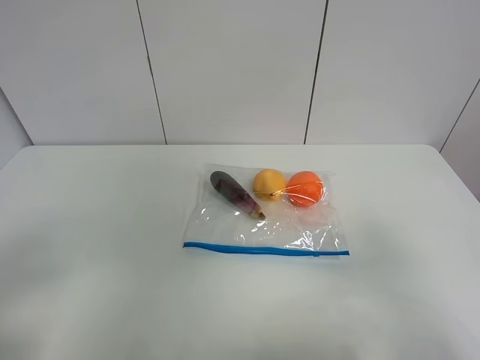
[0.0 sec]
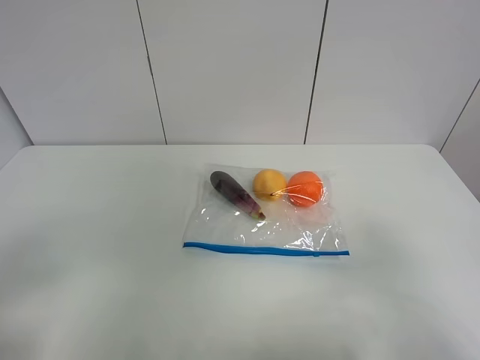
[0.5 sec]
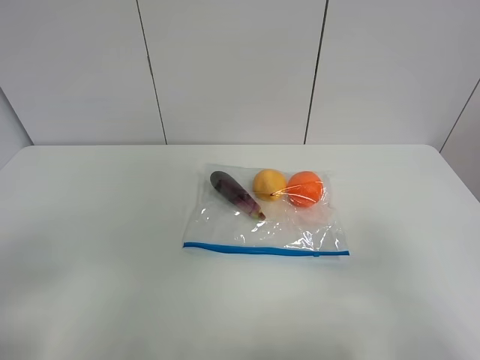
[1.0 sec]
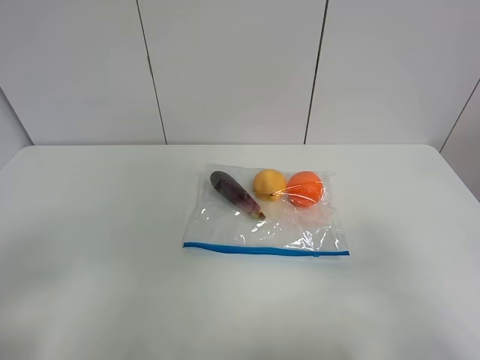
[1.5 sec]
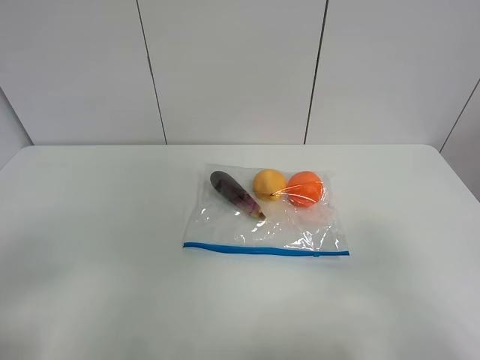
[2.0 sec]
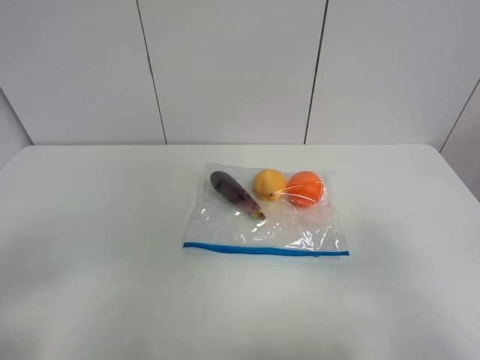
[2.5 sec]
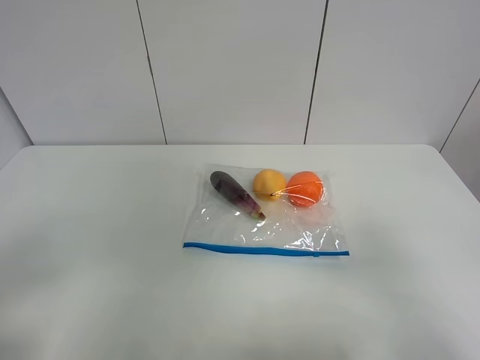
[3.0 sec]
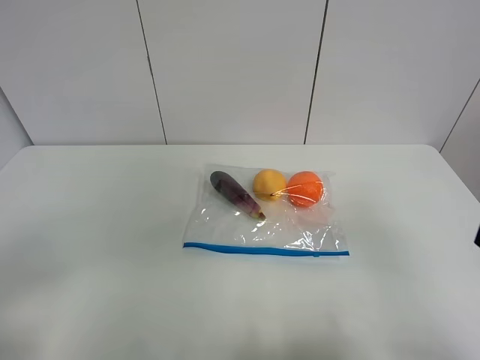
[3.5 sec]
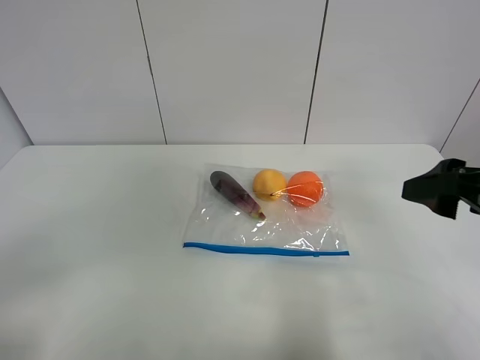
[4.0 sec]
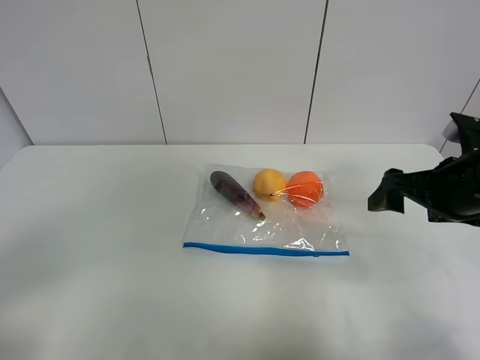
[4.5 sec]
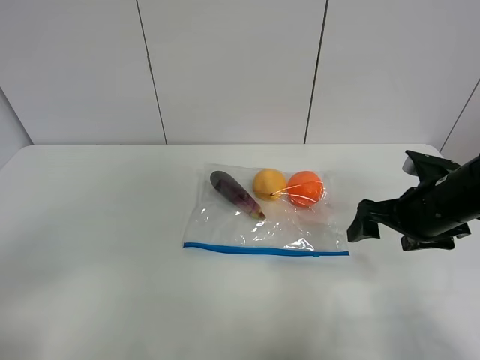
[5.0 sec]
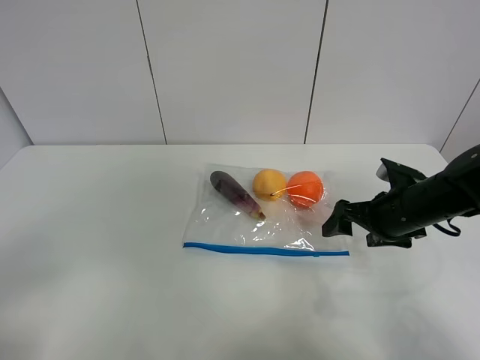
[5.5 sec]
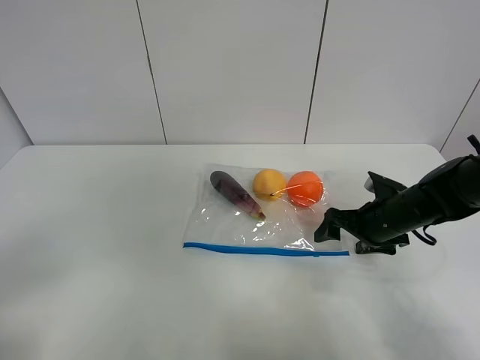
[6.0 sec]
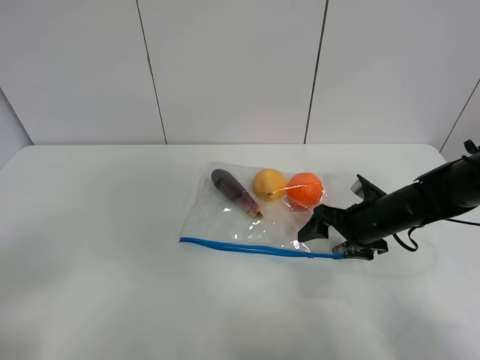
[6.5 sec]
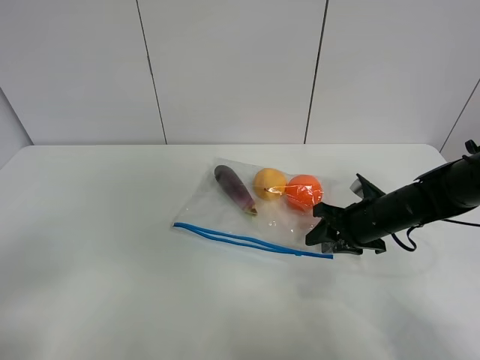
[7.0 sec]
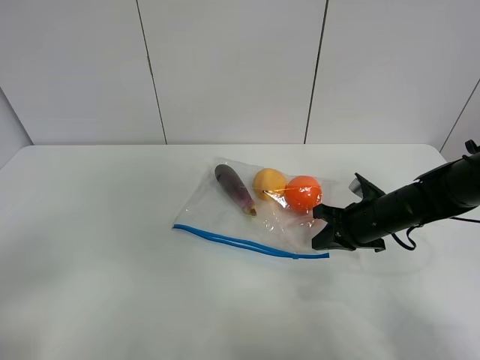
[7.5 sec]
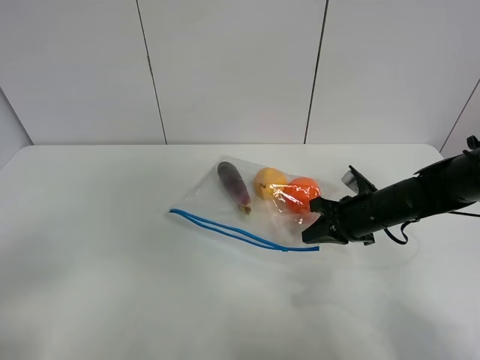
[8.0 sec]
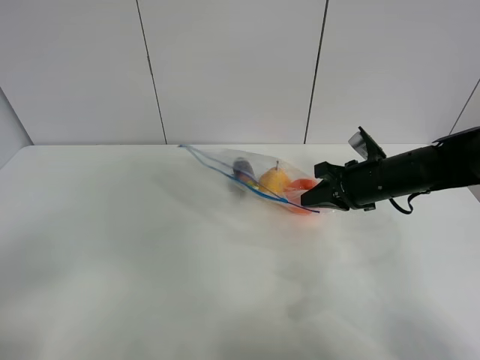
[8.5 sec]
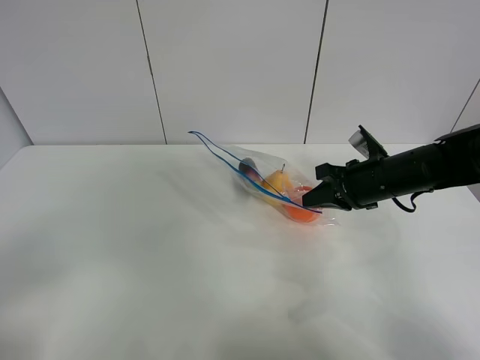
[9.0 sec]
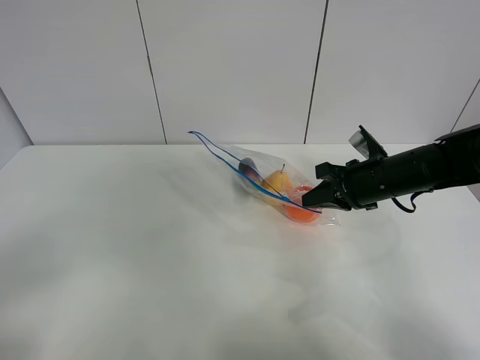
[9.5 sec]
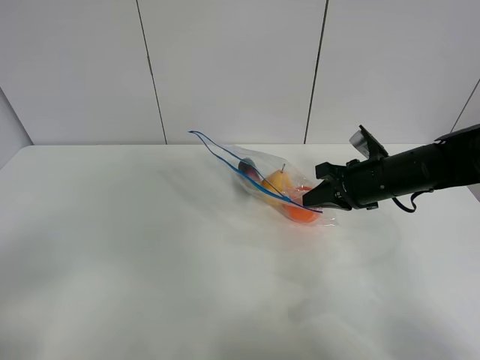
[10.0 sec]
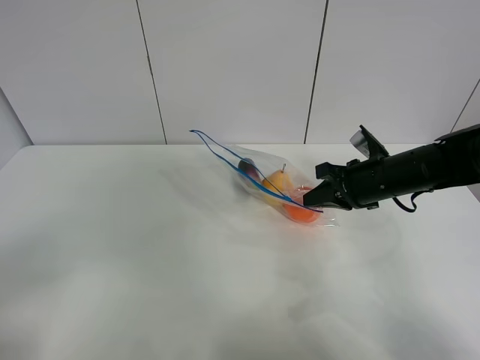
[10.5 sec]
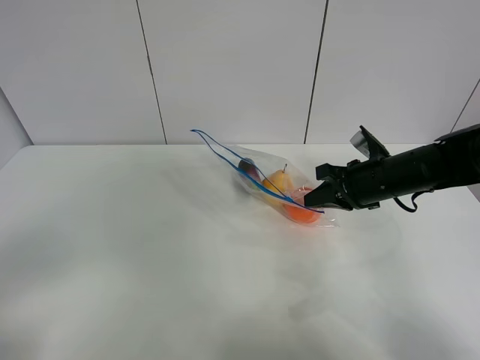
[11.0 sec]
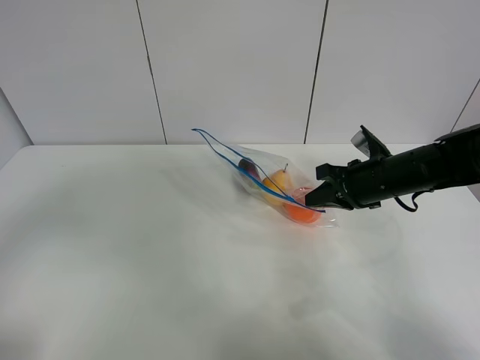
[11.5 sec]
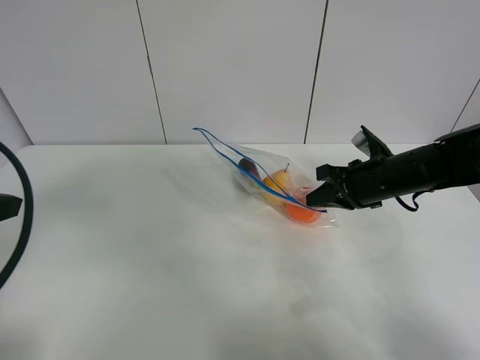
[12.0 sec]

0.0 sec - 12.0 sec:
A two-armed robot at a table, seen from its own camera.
Step, 0.0 sec - 7.0 sec: Grasp the fruit bag with right gripper.
Step, 7.5 sec - 9.0 sec: Lift the fruit bag with your right gripper.
0.0 sec - 2.0 sec: Both grippers stay put.
2.0 sec - 4.0 sec: The right gripper goes approximately 15 cm forward.
4.0 sec - 6.0 sec: The right gripper travels downward and forward by roughly 25 cm.
6.0 sec - 8.0 sec: The right gripper closes.
8.0 sec - 10.0 sec: The right gripper shifts approximately 5 cm upward.
10.0 sec - 12.0 sec: The left gripper is displaced forward by about 15 cm.

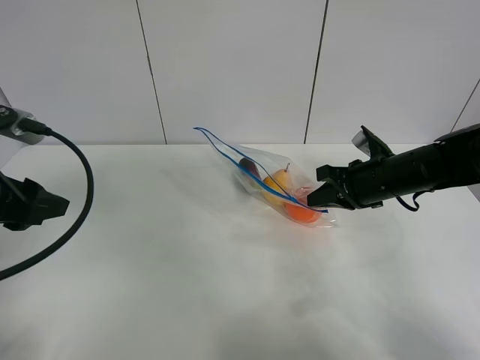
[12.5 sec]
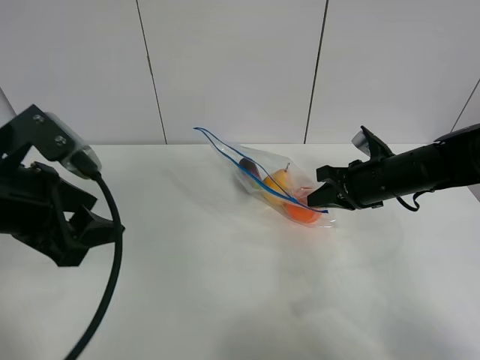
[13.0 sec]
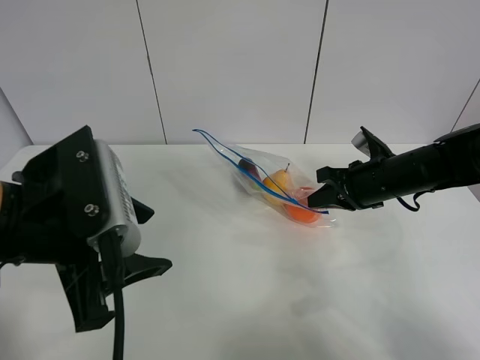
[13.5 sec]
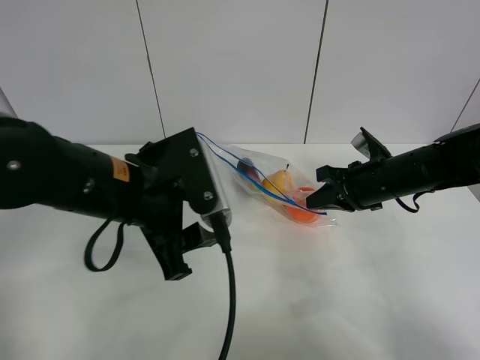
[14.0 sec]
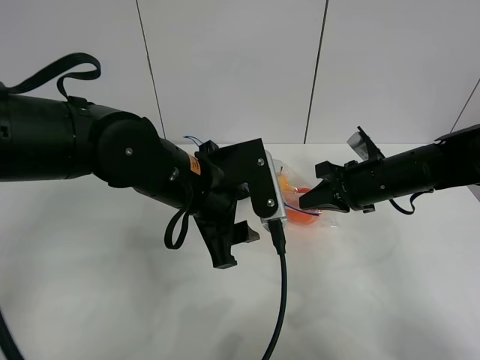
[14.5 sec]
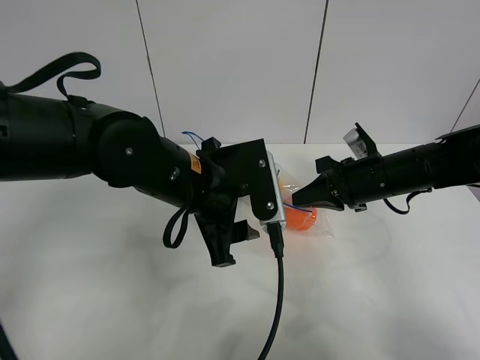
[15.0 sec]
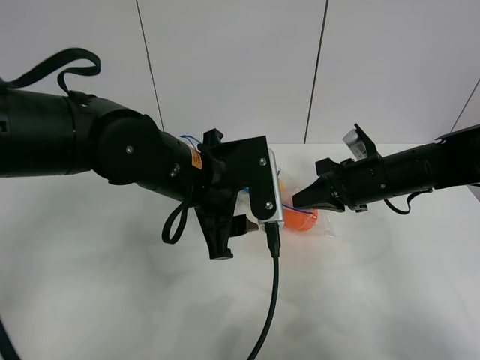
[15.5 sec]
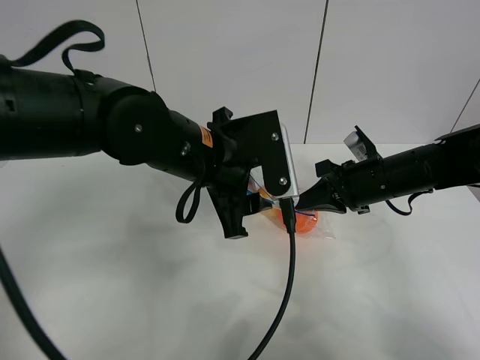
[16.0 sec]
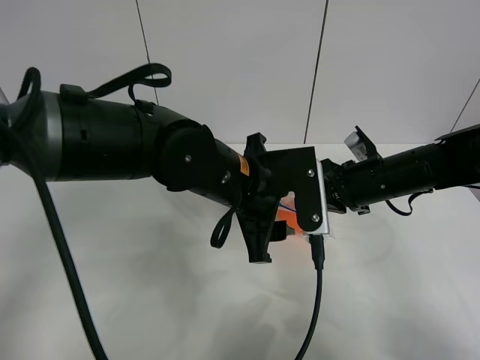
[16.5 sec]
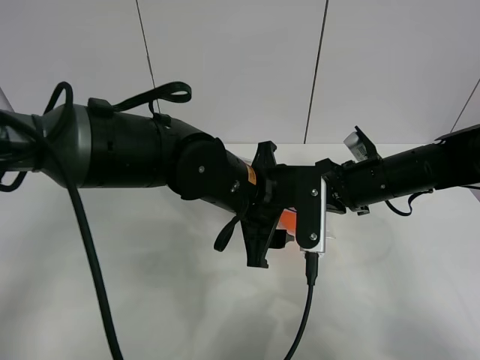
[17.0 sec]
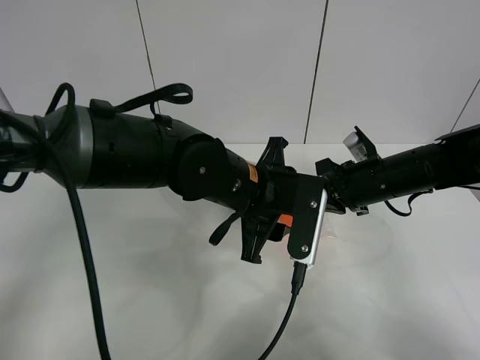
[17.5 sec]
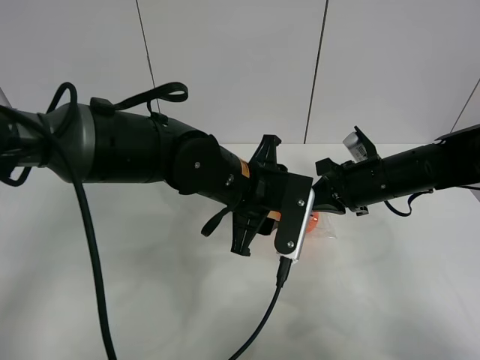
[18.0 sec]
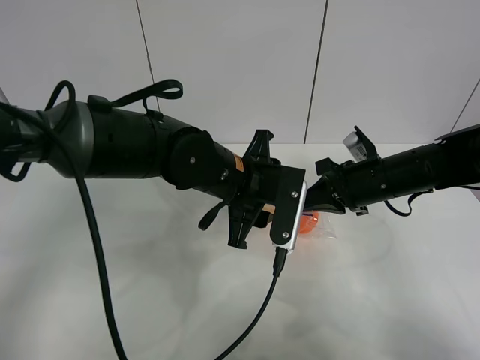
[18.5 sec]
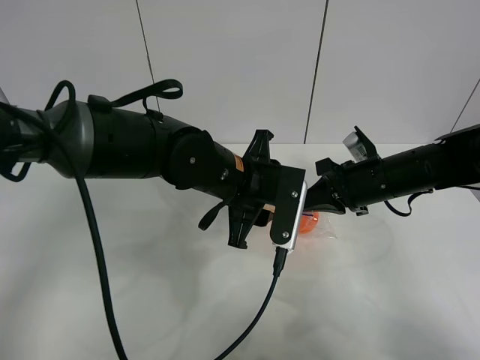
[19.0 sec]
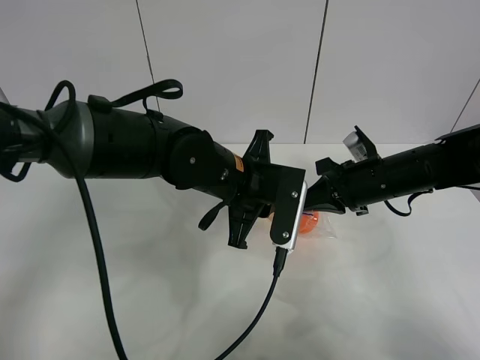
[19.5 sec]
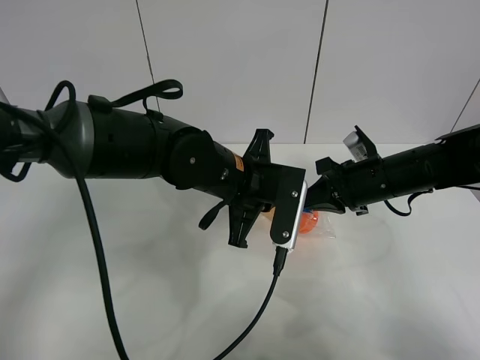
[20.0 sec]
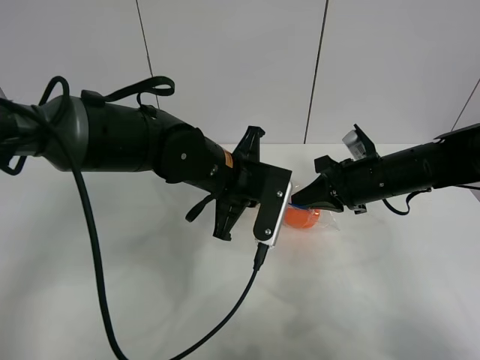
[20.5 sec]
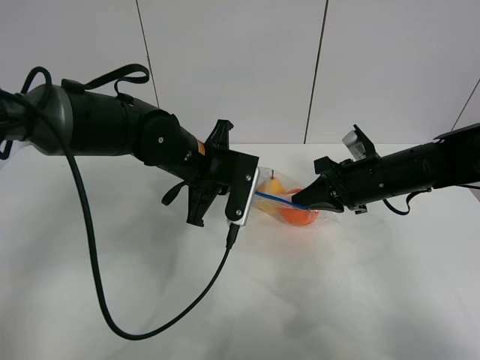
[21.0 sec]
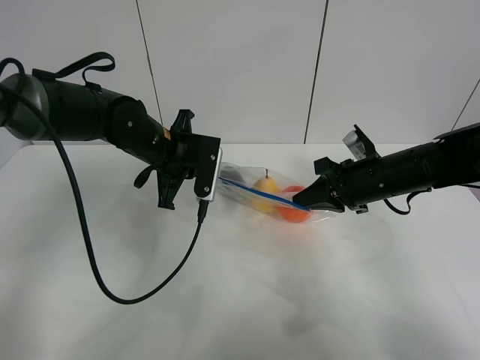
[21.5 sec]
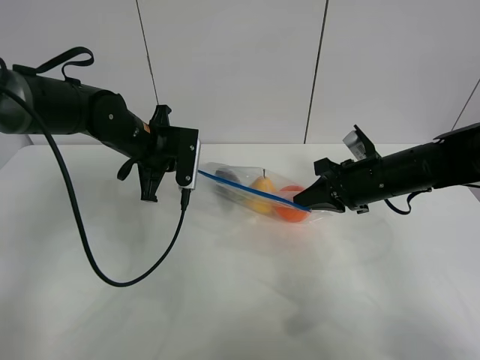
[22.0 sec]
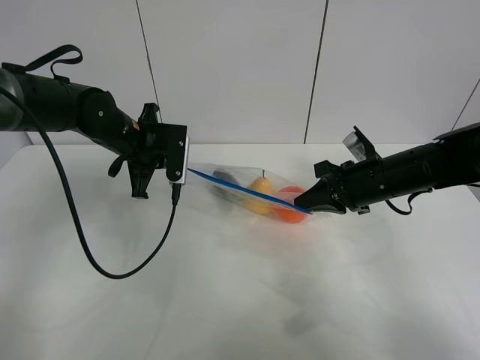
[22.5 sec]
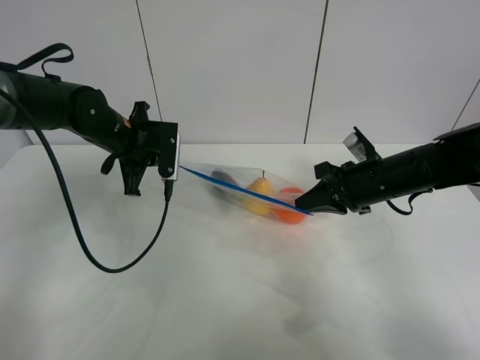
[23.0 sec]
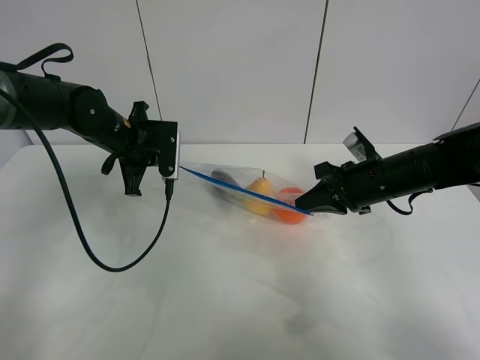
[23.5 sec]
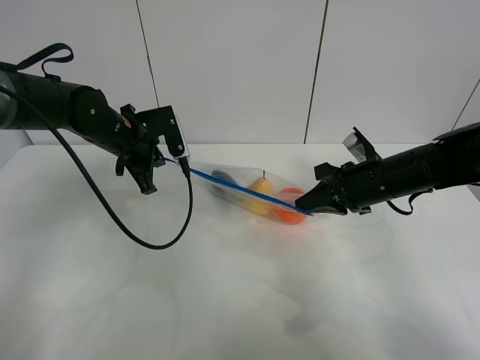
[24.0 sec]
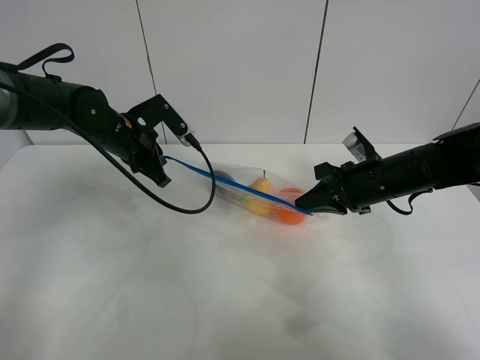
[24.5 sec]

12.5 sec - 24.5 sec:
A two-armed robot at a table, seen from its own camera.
12.5 sec - 14.5 sec: The left gripper travels to the right by about 25 cm.
14.5 sec - 16.5 sec: The left gripper travels to the right by some 5 cm.
18.5 sec - 20.5 sec: The left gripper closes up.
20.5 sec - 22.5 sec: The left gripper shifts approximately 15 cm to the left and forward.

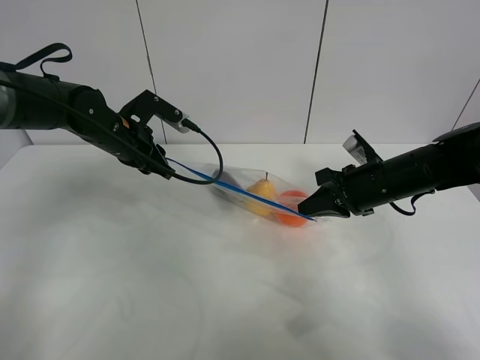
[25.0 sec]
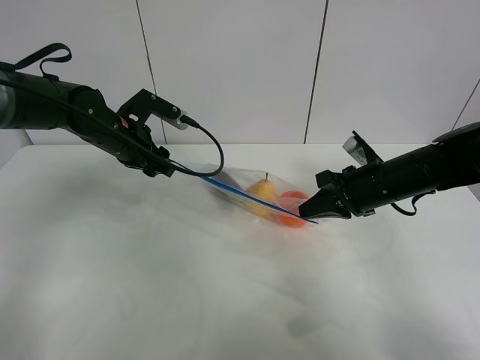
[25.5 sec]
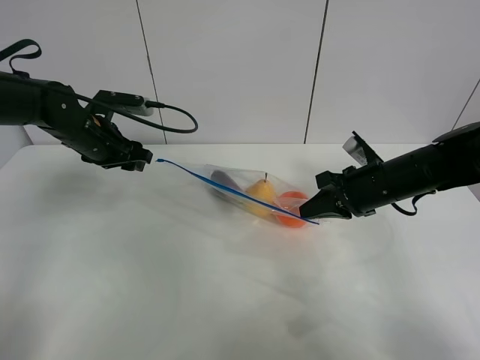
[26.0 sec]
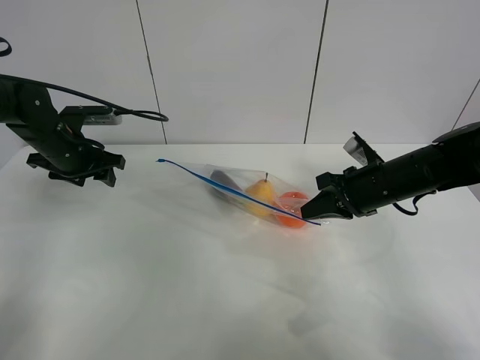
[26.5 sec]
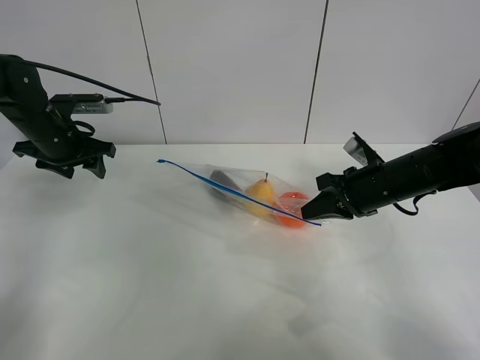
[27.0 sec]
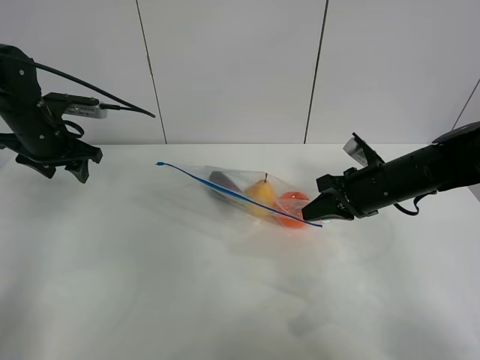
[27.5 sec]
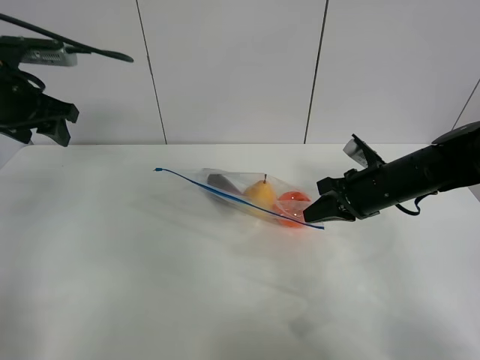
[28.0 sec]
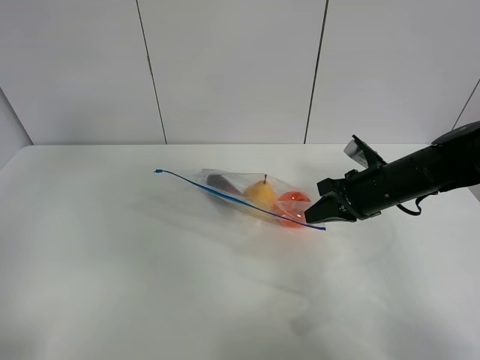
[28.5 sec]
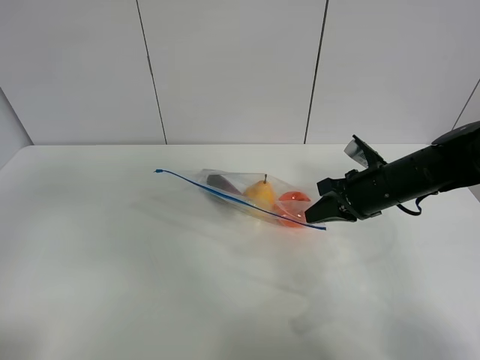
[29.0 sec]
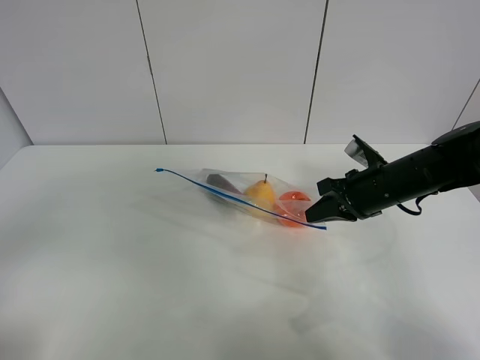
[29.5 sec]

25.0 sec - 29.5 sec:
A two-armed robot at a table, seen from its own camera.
25.0 sec - 27.0 sec: The left gripper travels to the left by approximately 10 cm.
27.0 sec - 29.5 sec: The left gripper heads backward, covering roughly 40 cm.
